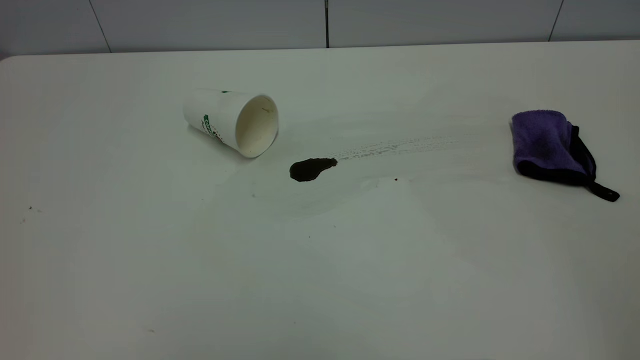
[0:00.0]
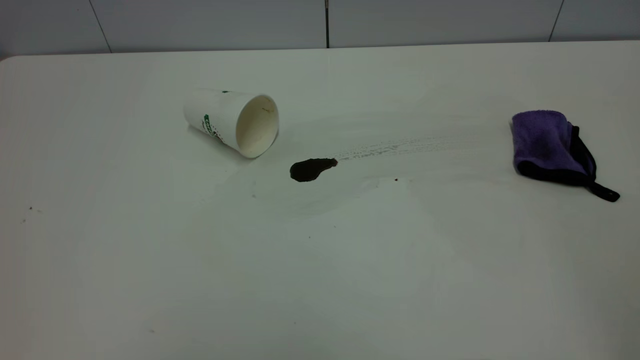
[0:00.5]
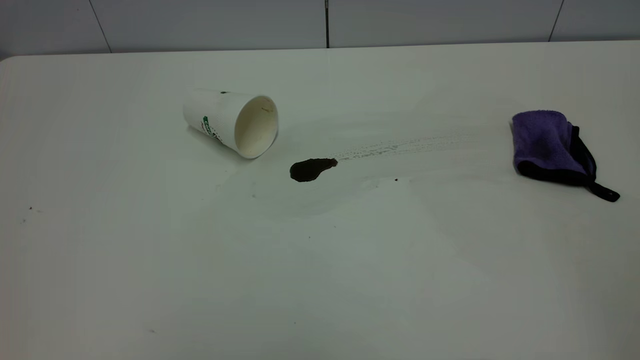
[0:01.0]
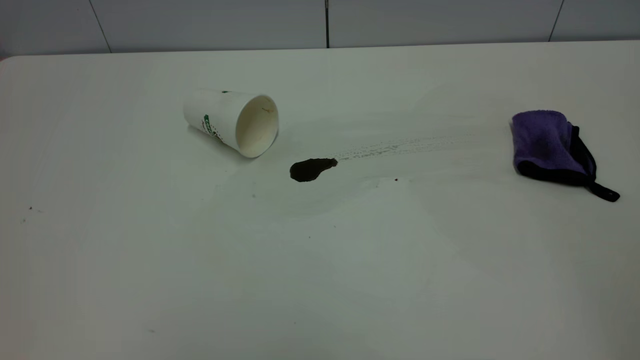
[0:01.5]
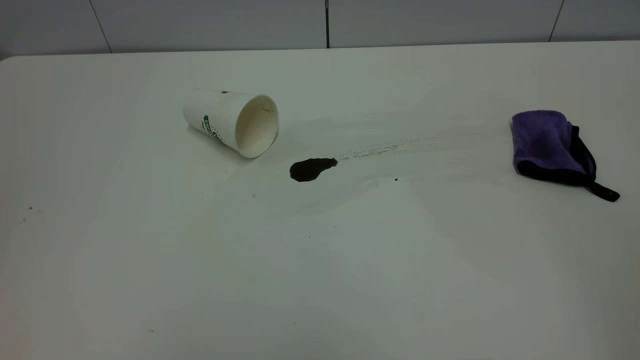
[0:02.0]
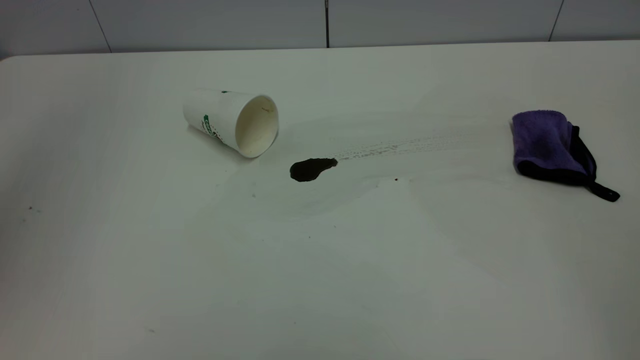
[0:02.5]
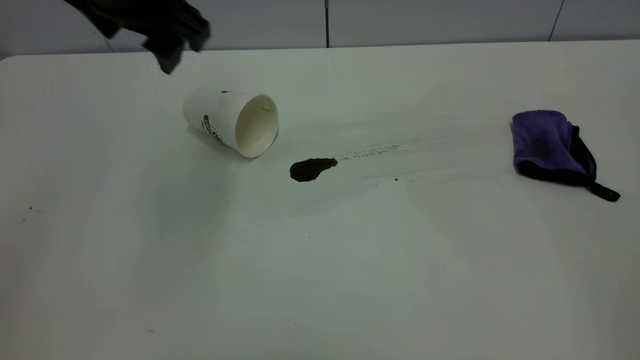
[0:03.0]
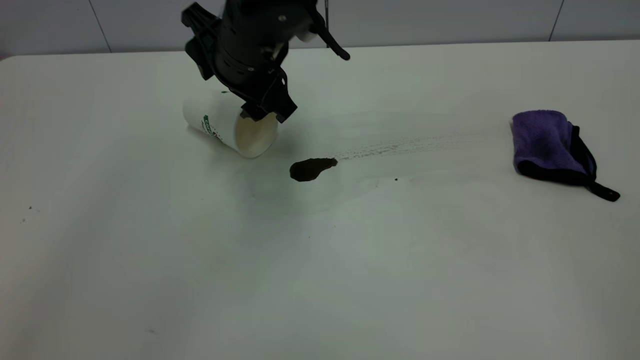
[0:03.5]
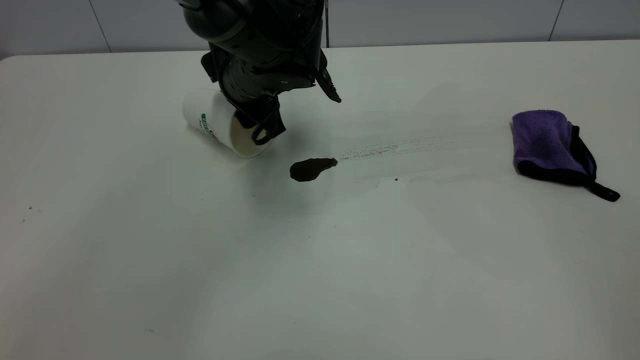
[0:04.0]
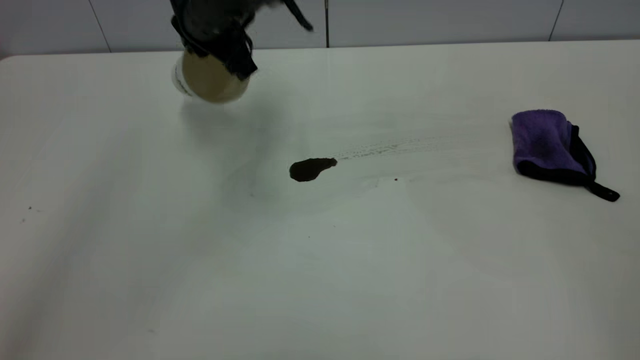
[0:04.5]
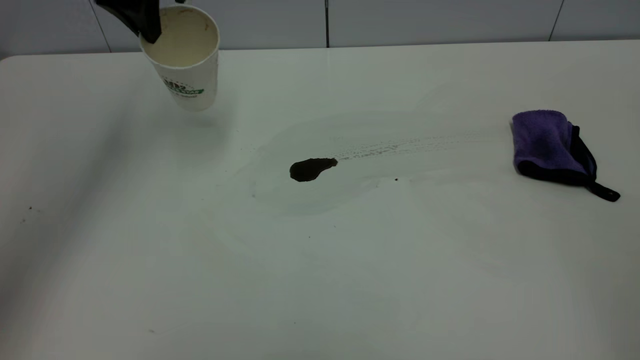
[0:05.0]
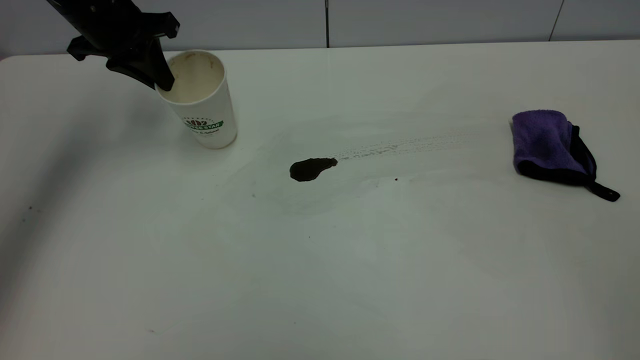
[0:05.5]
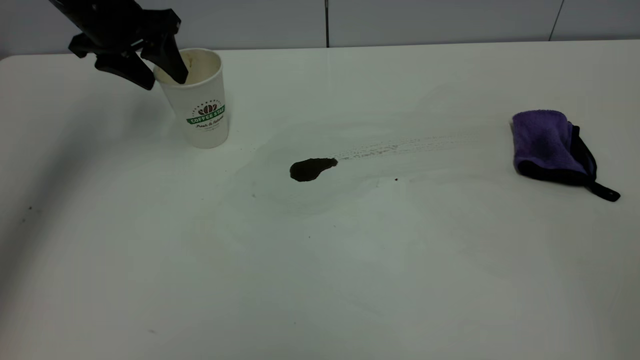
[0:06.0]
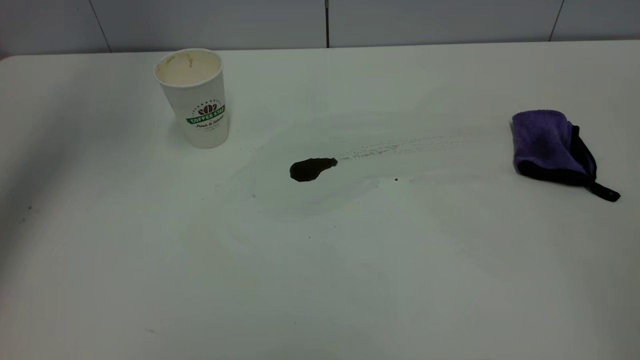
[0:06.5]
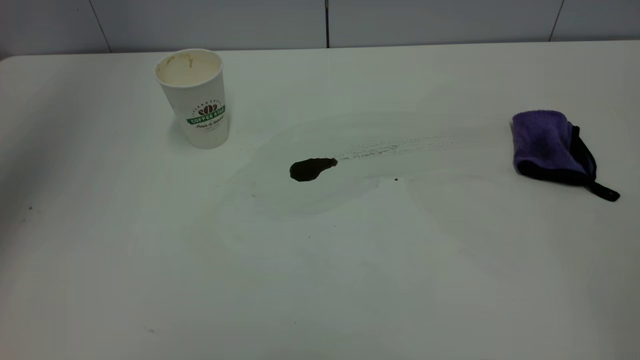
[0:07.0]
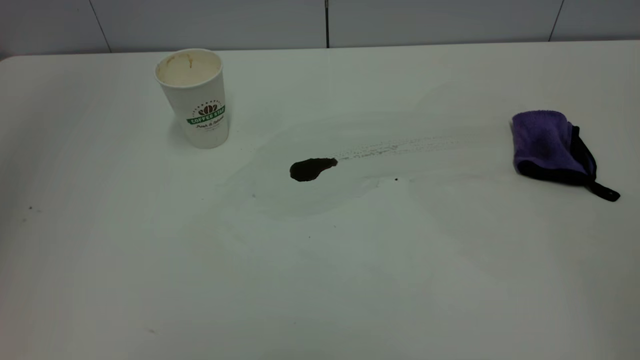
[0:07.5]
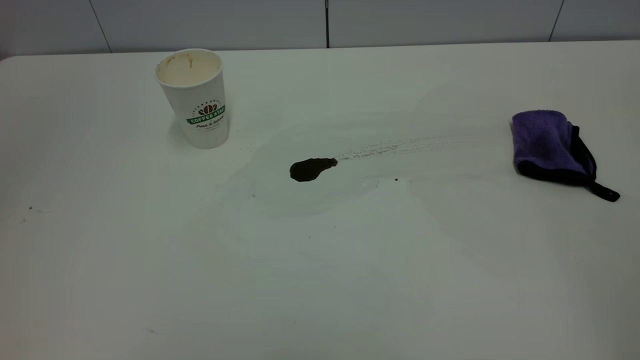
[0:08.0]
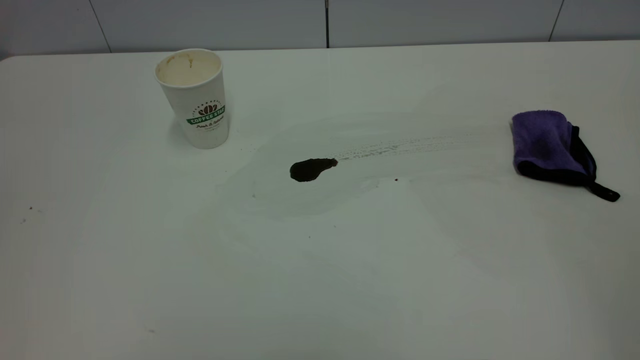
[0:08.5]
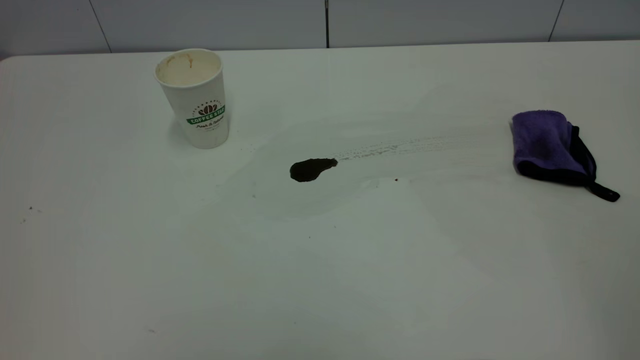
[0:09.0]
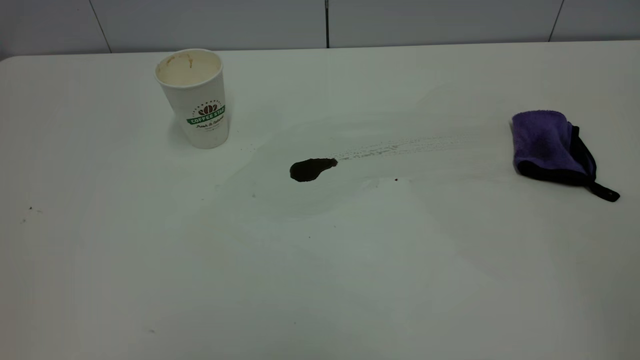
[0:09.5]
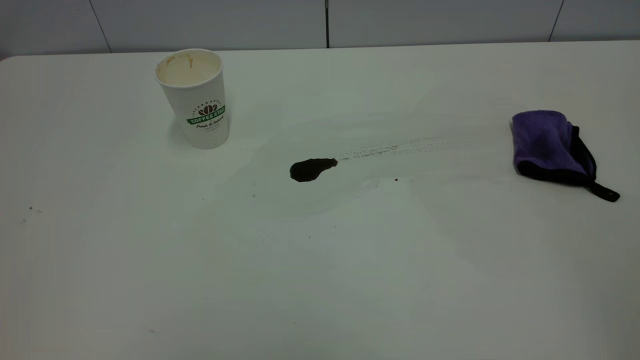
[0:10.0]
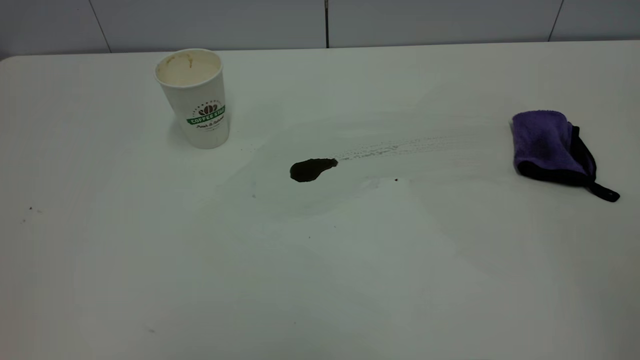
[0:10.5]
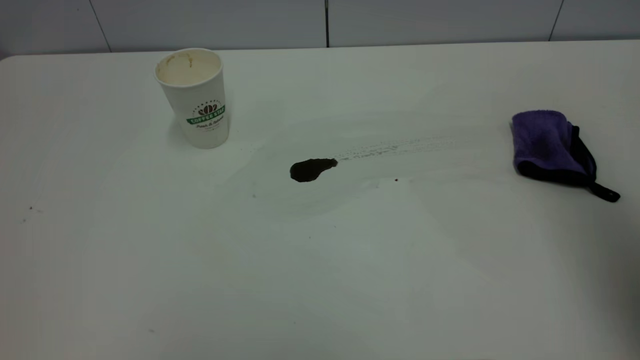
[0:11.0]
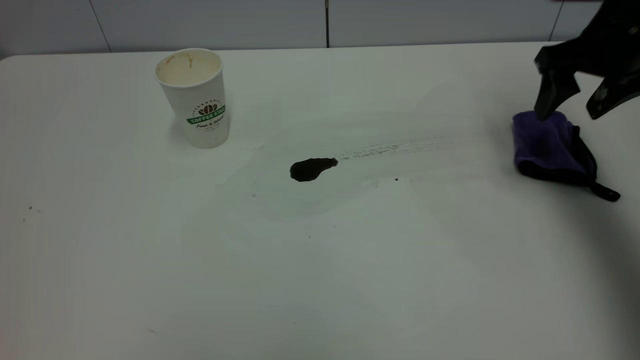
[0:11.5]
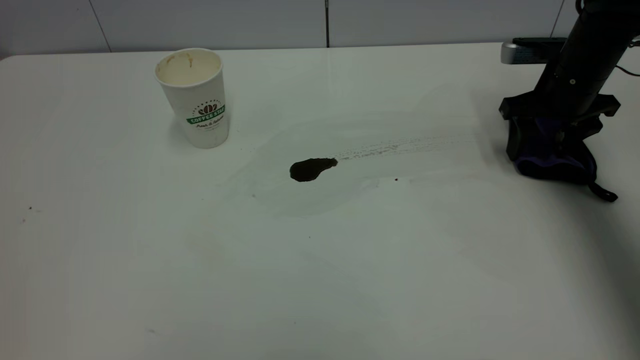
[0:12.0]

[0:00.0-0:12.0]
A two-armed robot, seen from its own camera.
Task of the whole recording: the left gripper pick up the fallen cup and place it upright, the right gripper grasp the purple rag and wipe the coffee stain on the table, the right gripper put the purple rag back in its original position.
Step, 0:00.0 to 0:06.0: Stand the paper cup upright.
0:02.0 to 0:04.0: The left gripper heads forward, downward and to the right, covering about 50 cm.
0:04.0 to 0:06.0: The left gripper travels to the left and upward by roughly 20 cm, and closes, then opens again.
0:06.0 to 0:08.0: The left gripper heads backward and upward, covering roughly 50 cm.
0:10.0 to 0:12.0: The right gripper travels forward and downward by roughly 50 cm.

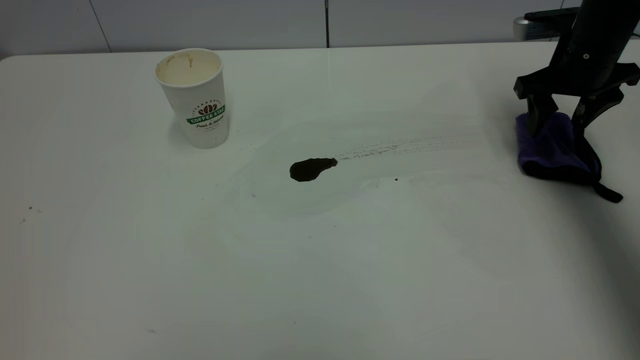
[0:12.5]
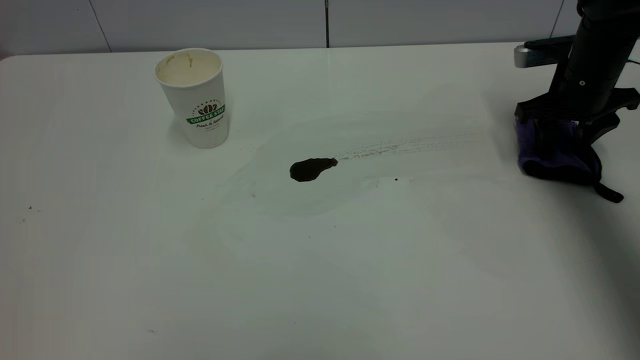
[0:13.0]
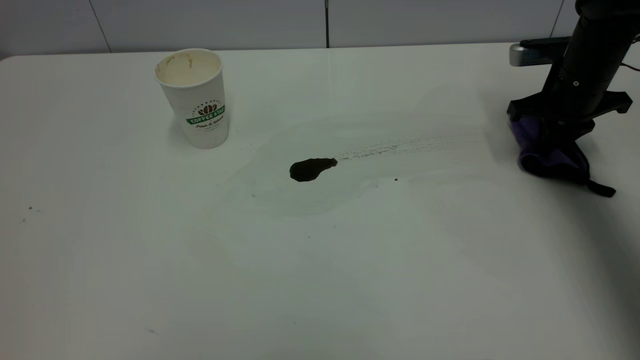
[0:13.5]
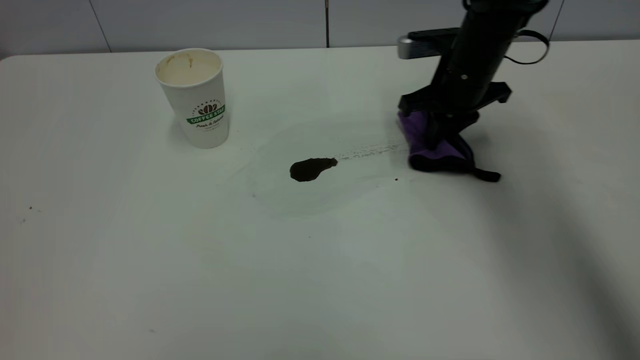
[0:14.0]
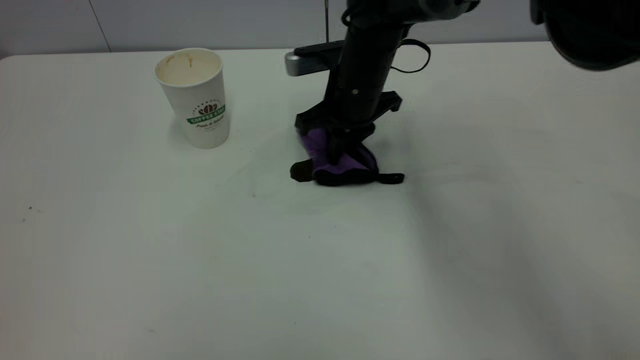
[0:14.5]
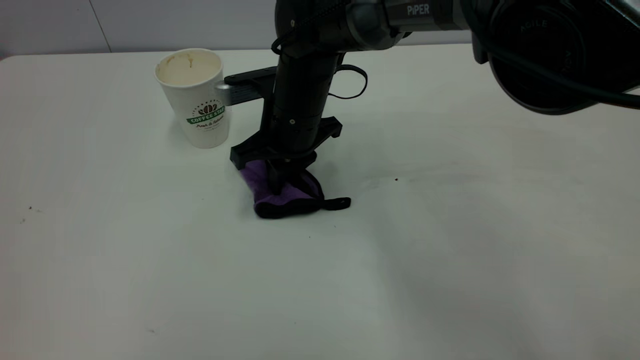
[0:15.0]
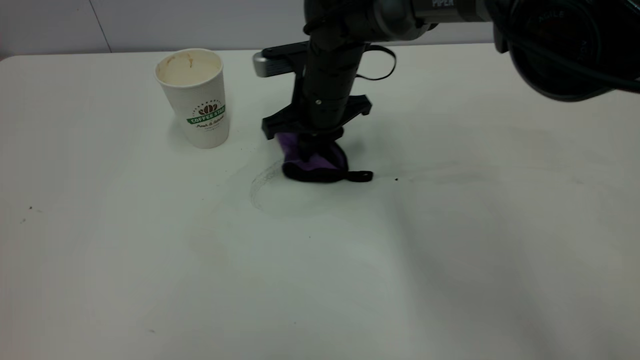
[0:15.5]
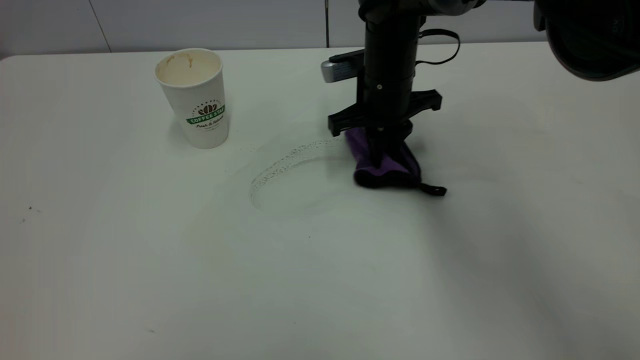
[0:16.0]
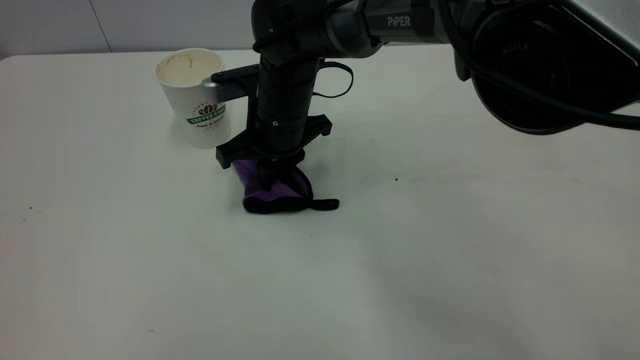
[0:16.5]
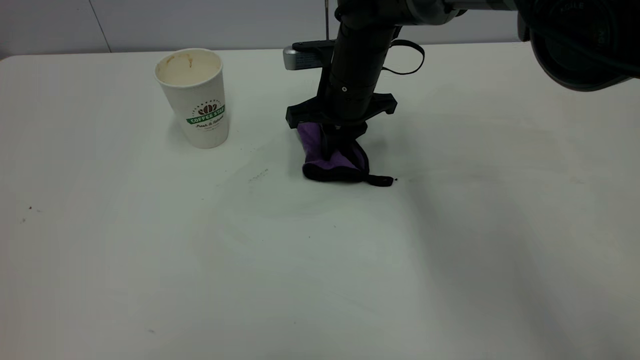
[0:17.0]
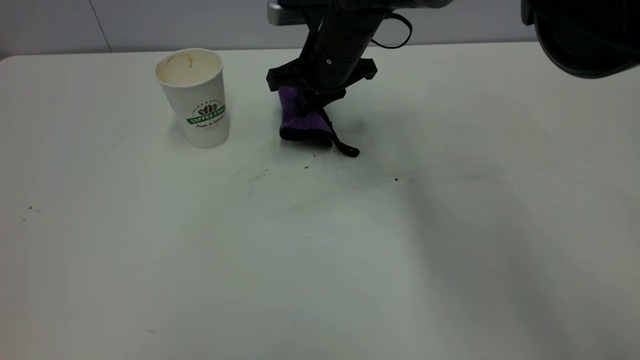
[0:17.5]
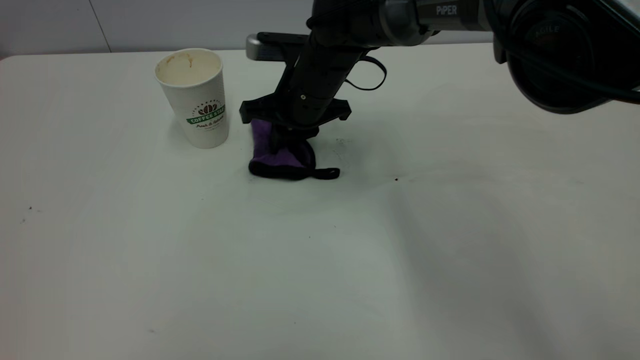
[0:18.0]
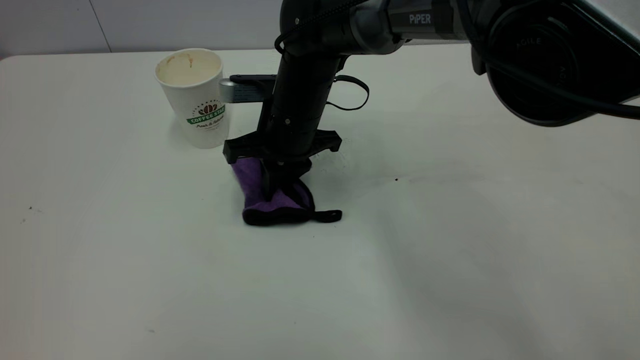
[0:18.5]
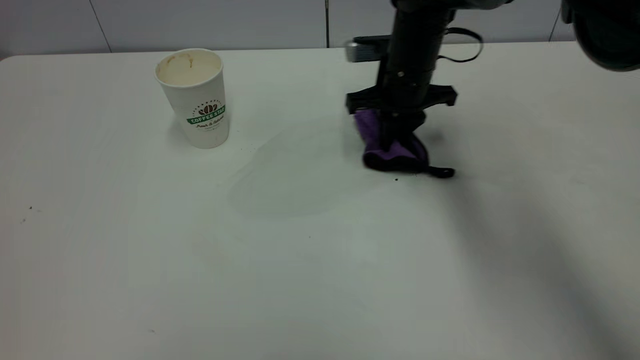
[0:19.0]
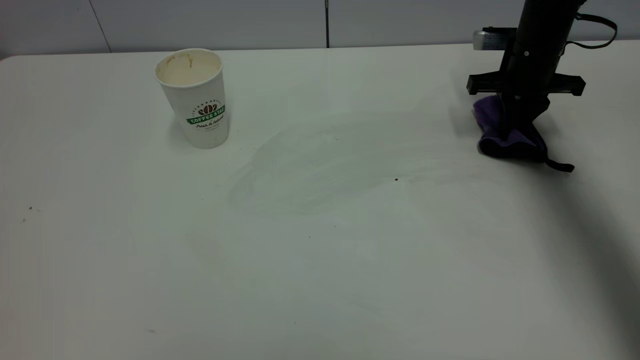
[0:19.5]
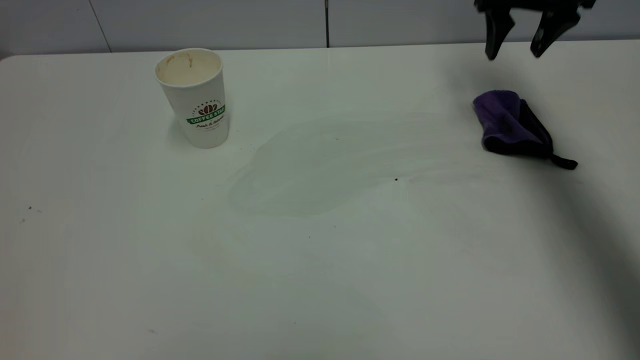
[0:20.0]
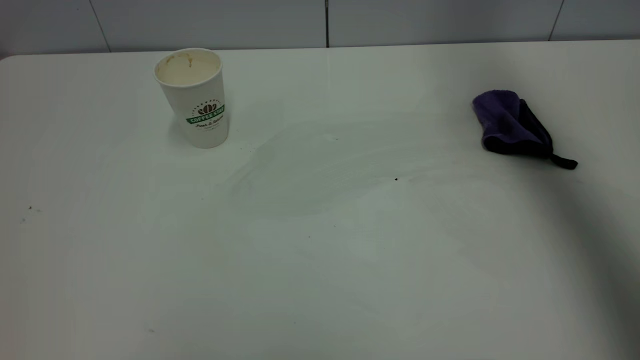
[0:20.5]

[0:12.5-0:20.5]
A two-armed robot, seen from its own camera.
Task of the whole recording: the left gripper pick up the fallen cup and place it upright, the right gripper grasp the purple rag and wipe the coffee stain on the table, the right gripper put the purple rag back in its original position.
Step, 0:12.5 to 0:19.5: Wipe the stains off the table with a rag.
0:12.5 to 0:14.5: The right gripper is displaced to the left by approximately 25 cm, and closes.
0:14.5 to 0:16.5: The right gripper goes left and right, roughly 10 cm each way, reversing 2 times.
0:18.5 to 0:20.5: The right gripper moves upward and to the right, some 40 cm, and opens its fingers.
